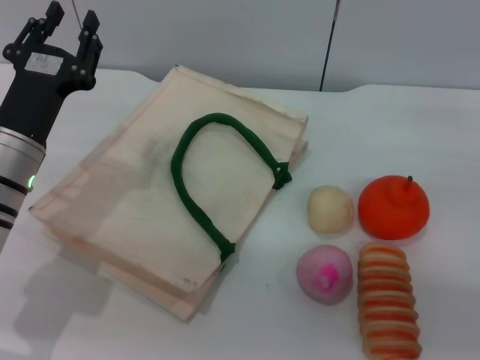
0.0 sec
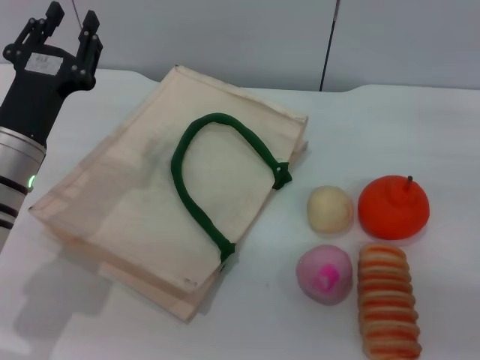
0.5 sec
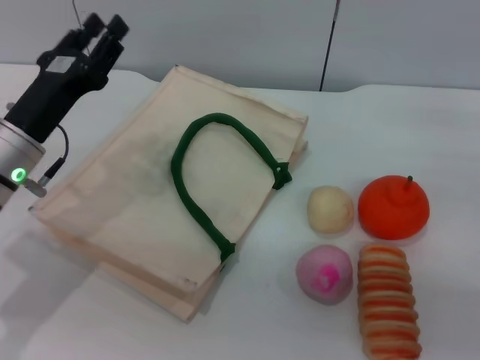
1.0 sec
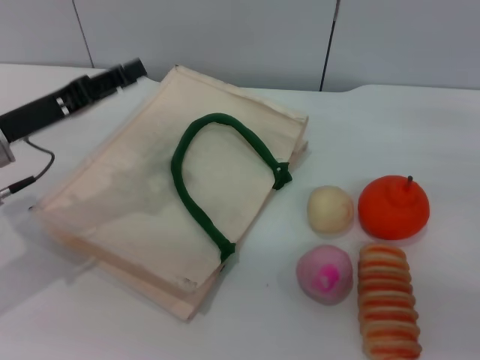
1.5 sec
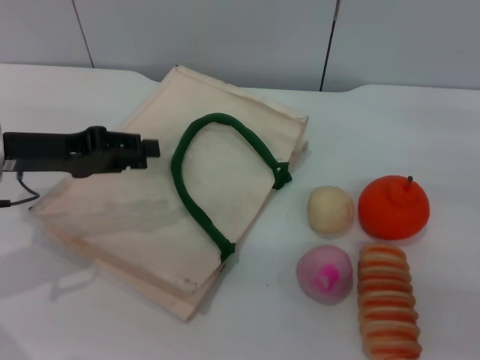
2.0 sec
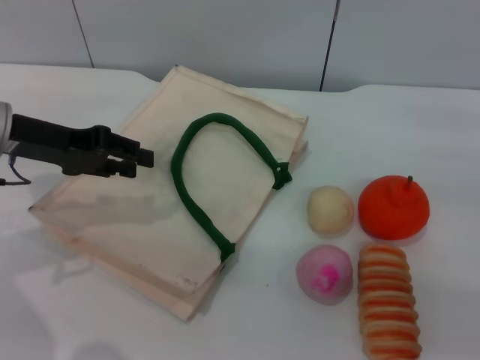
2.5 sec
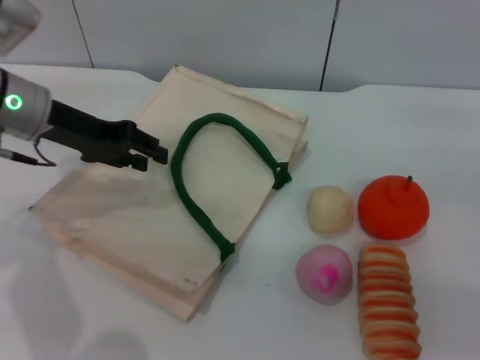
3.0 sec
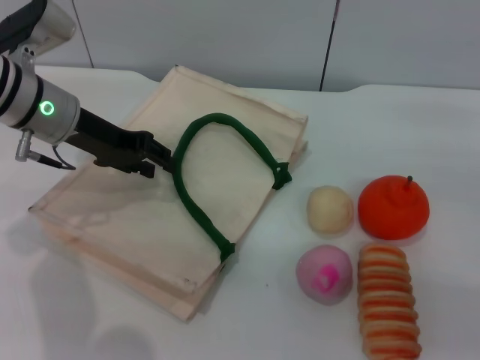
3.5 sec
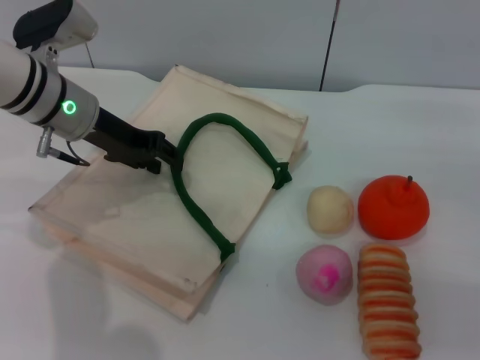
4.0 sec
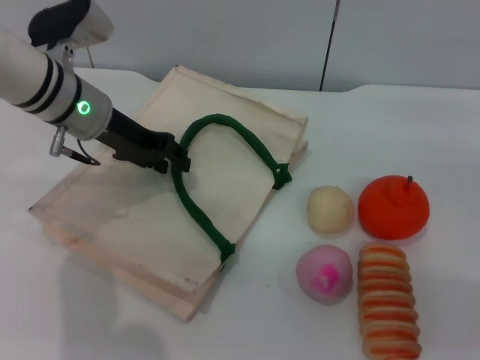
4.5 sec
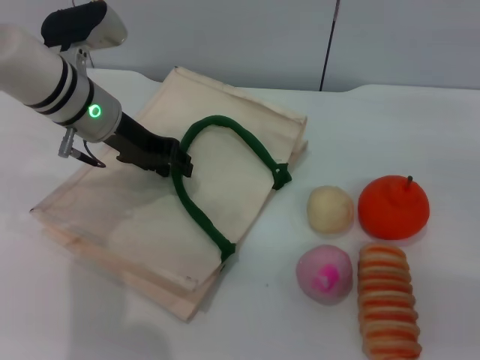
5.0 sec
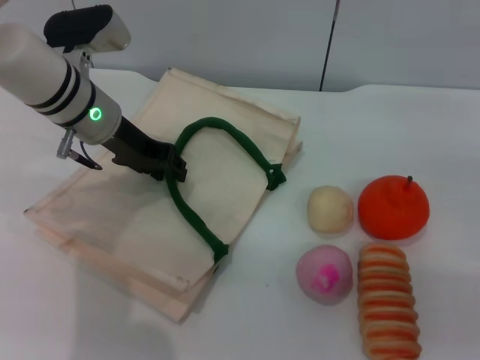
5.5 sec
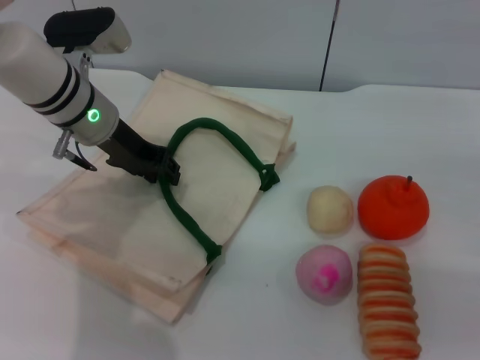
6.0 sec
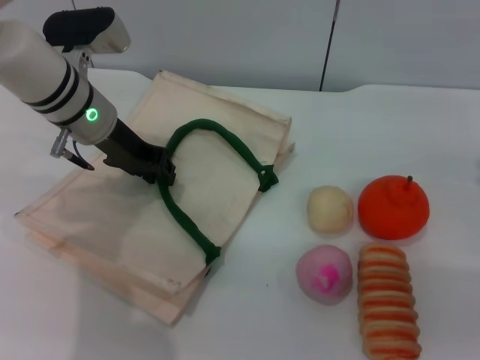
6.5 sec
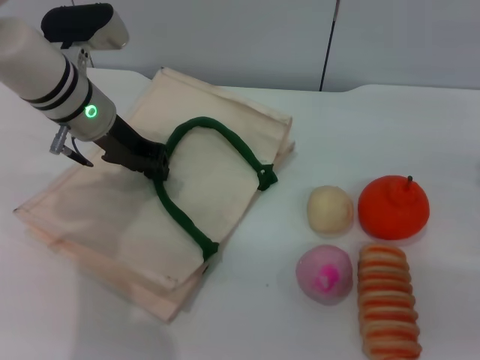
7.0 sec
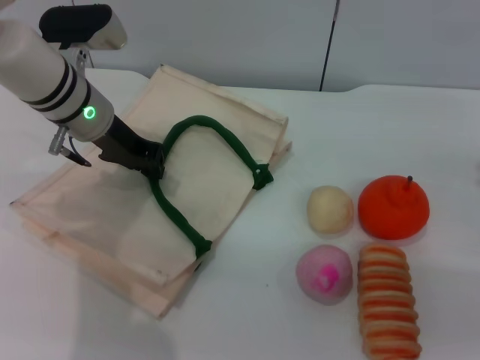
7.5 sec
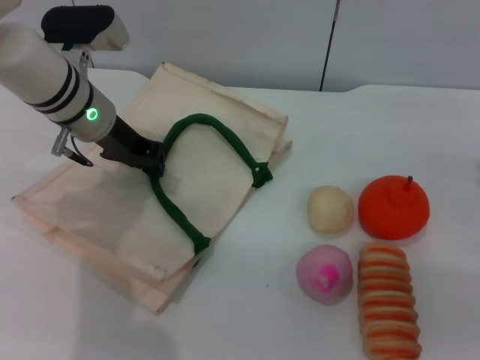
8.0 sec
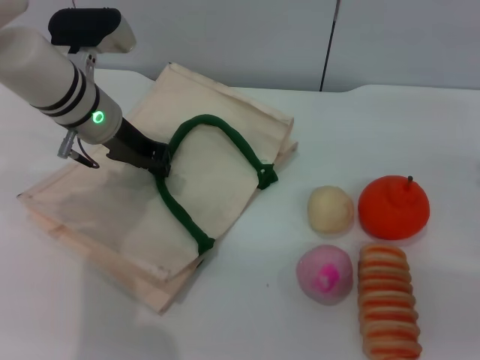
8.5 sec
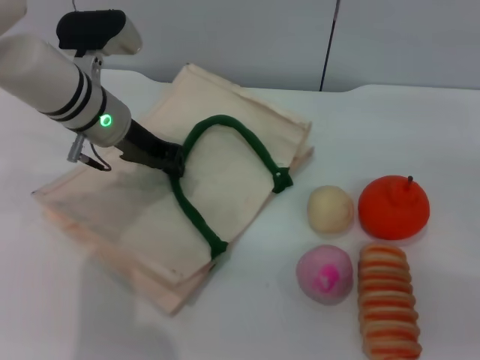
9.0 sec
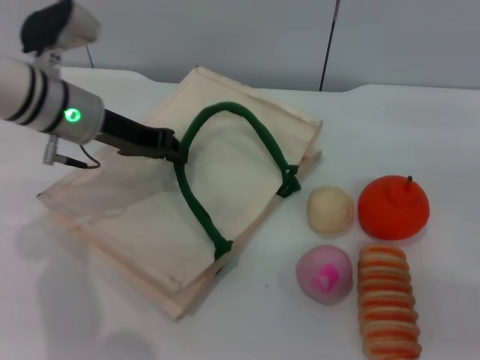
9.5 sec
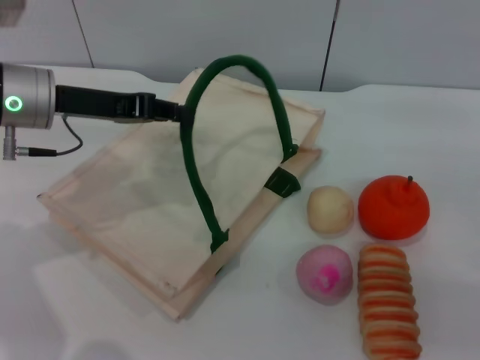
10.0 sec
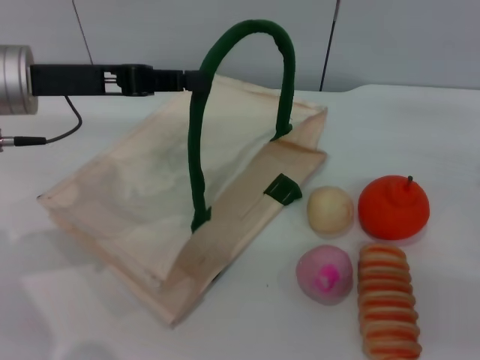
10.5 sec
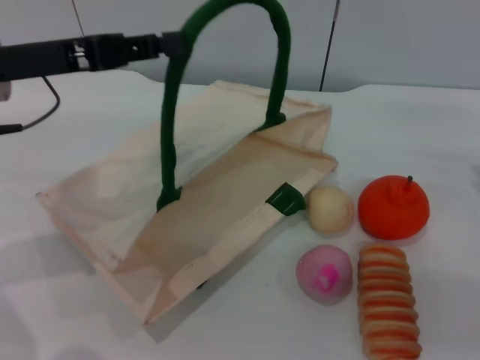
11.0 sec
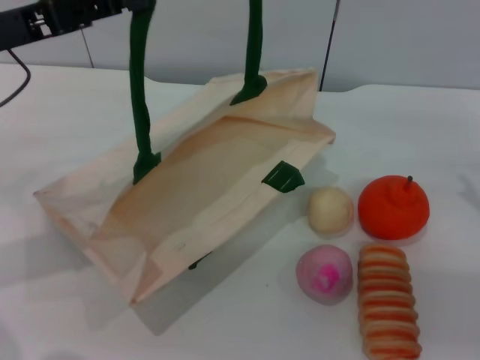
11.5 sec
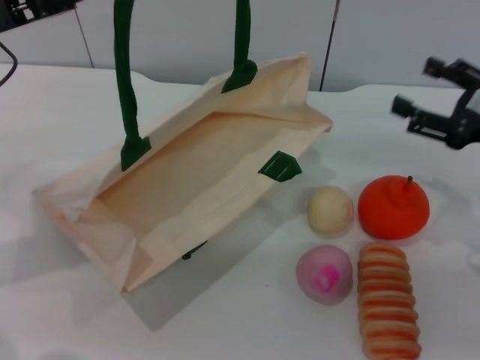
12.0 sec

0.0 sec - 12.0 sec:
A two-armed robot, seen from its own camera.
Task of the whole recording: pick up the egg yolk pastry from the table and place it in the white handbag.
Step, 0.0 sec - 11.0 sec: Lift the woven bag with the left gripper to open it.
0.0 sec - 2.0 sec: The left gripper goes approximately 10 cm upward and to the left.
2.0 sec - 4.0 sec: The left gripper travels forward and to the right by roughly 10 cm.
4.0 sec - 6.0 sec: The grippers make only small movements.
6.0 sec - 8.0 sec: The left gripper closes its fingers.
8.0 sec - 10.0 sec: The left gripper heads backward and to the left, covering some 10 cm.
10.0 sec - 12.0 sec: The left gripper goes some 5 cm upward.

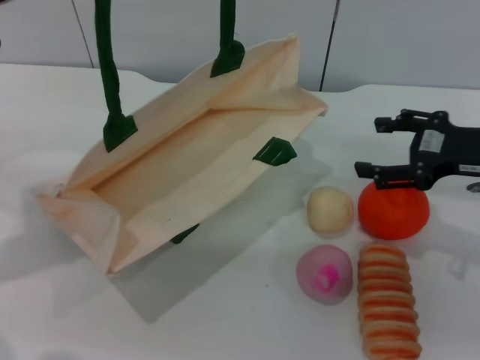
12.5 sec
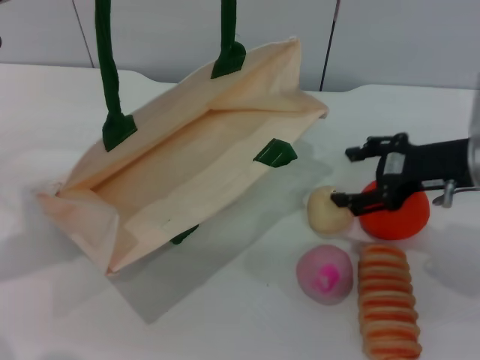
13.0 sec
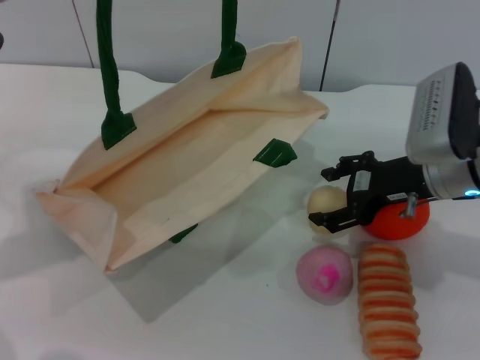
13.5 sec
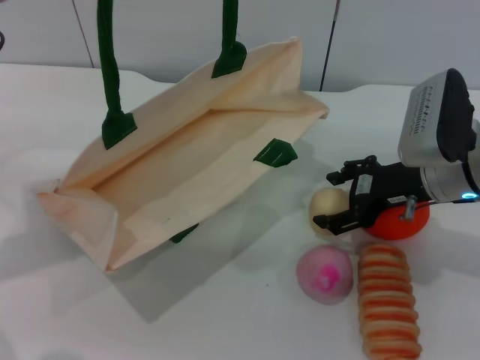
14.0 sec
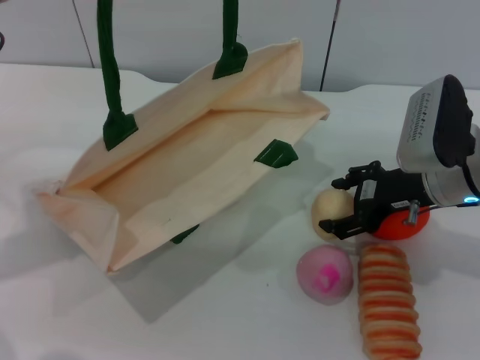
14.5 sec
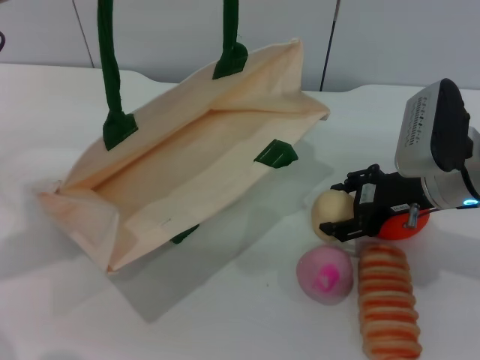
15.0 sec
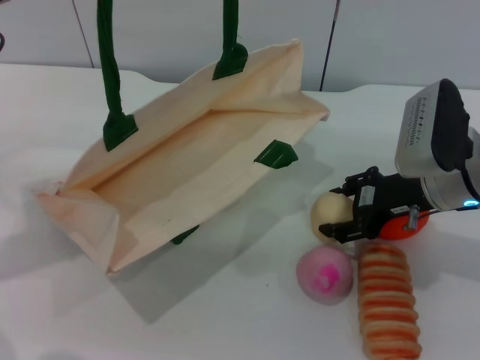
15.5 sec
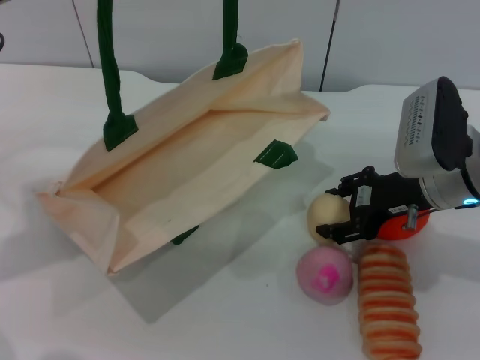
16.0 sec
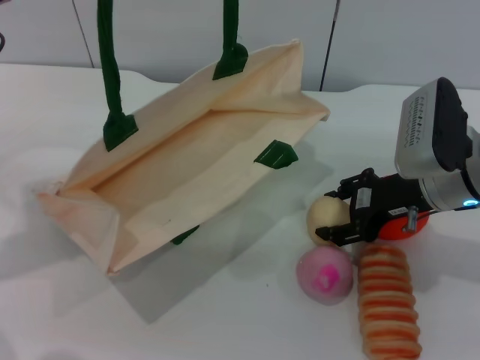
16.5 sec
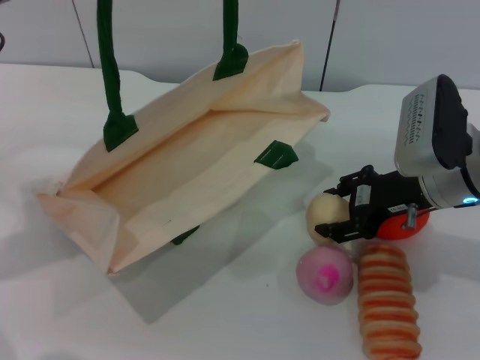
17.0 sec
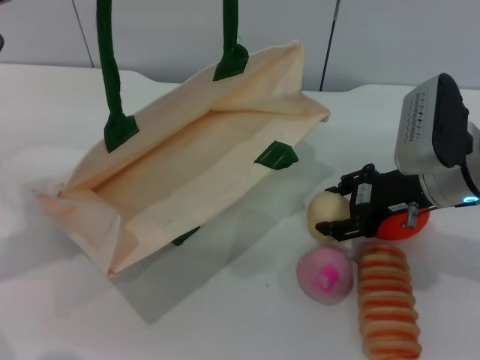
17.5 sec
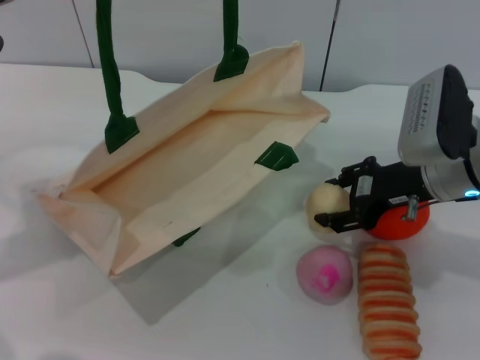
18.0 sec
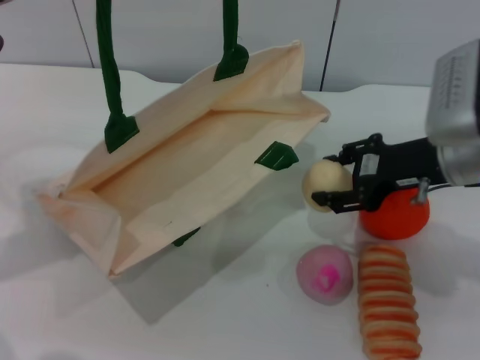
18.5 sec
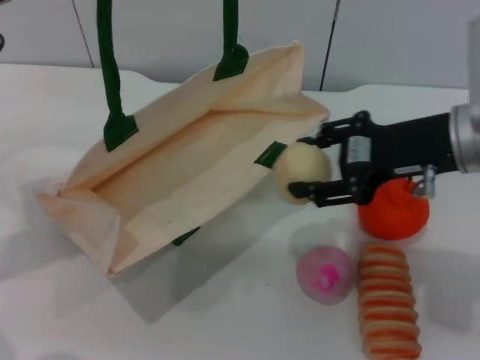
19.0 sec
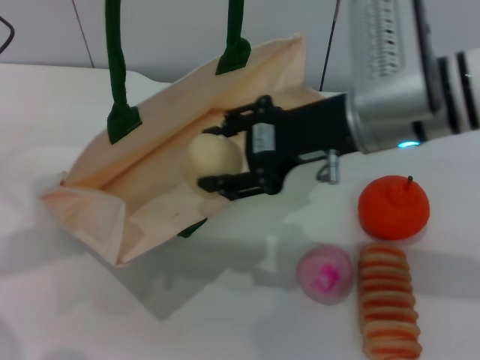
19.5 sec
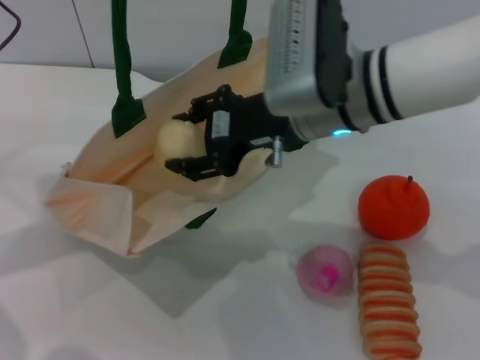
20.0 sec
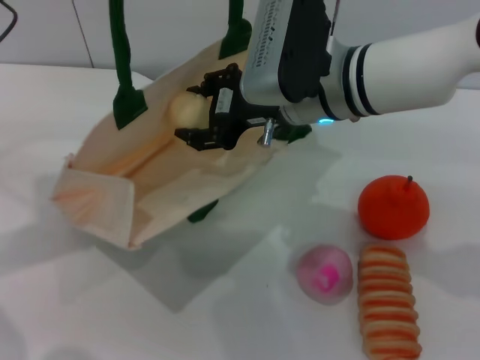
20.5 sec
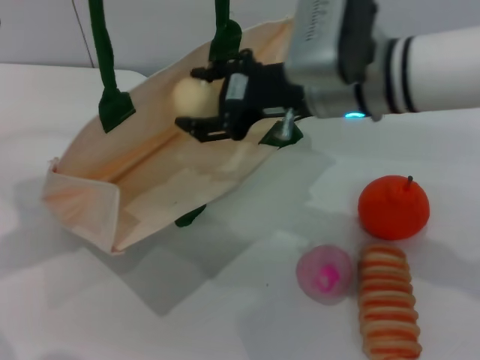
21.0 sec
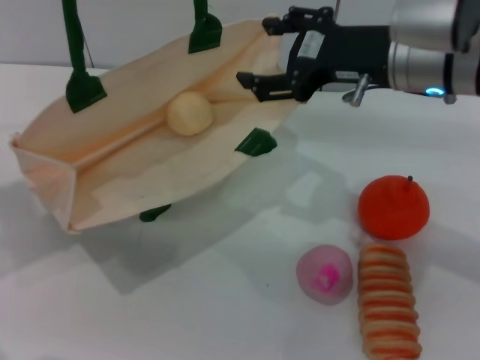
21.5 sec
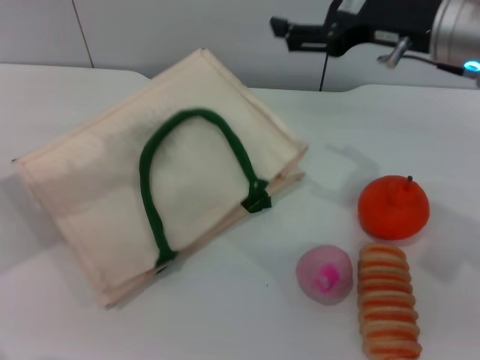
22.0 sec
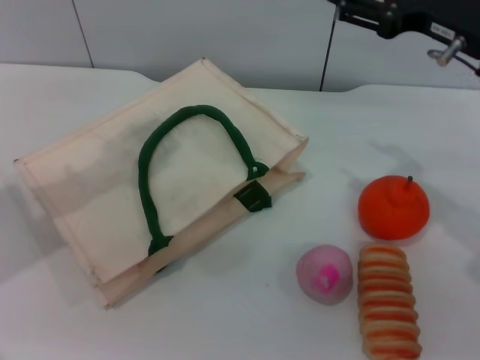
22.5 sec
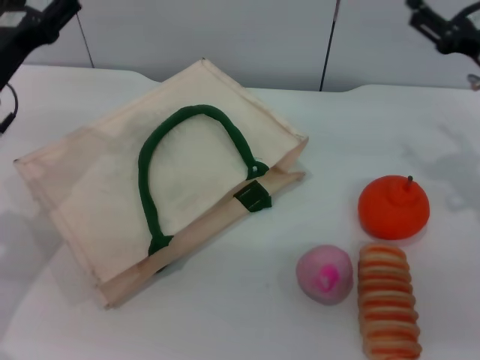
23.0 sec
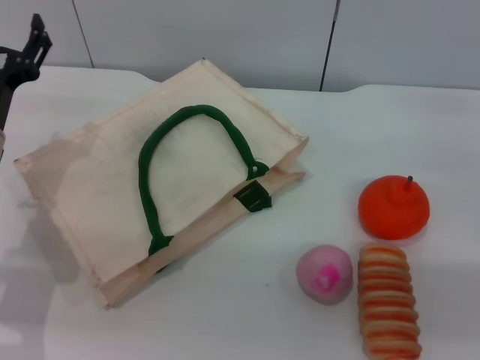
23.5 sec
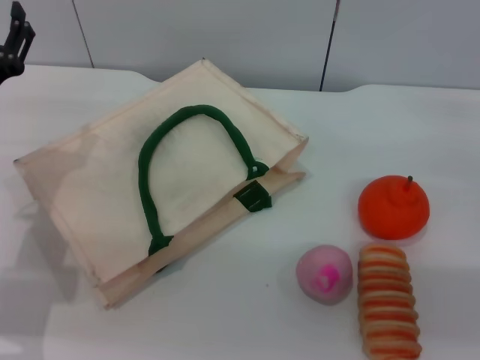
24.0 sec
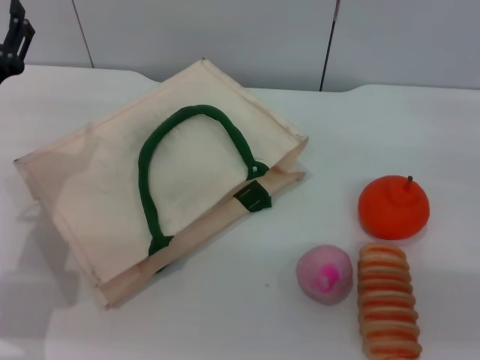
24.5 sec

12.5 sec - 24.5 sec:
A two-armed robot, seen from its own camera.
Task of the whole recording: pick up the egg yolk pastry from the table and place it in the white handbag.
Step, 12.5 sec - 18.5 sec: Pick up the egg yolk pastry with the right gripper.
Step, 19.0 sec - 21.5 sec: Place the egg yolk pastry into the woven bag with the right gripper.
12.5 sec - 14.5 sec: The right gripper is displaced to the left by approximately 5 cm.
14.5 sec - 16.5 sec: The right gripper closes up.
16.5 sec - 18.5 sec: There are only small adjustments of the grippers.
18.5 sec - 20.5 sec: The right gripper moves to the left, approximately 15 cm.
20.5 sec - 22.5 sec: The right gripper shifts about 15 cm to the right, and opens; the left gripper opens.
22.5 sec - 24.5 sec: The right gripper goes roughly 15 cm to the right and downward; the left gripper heads downward, covering some 10 cm.
